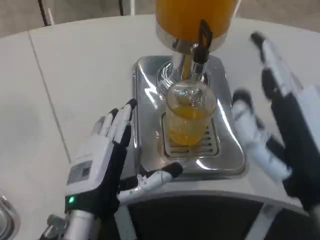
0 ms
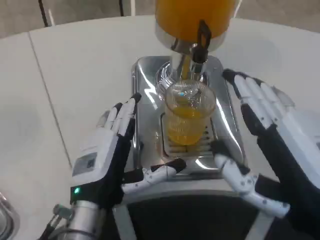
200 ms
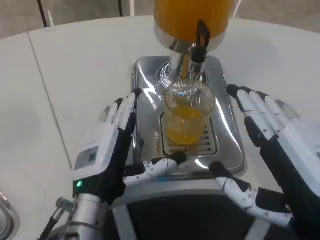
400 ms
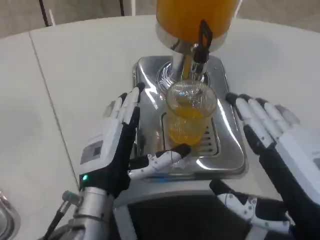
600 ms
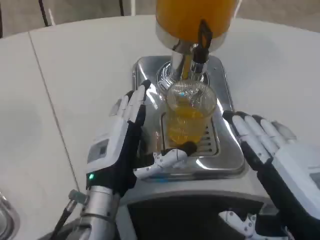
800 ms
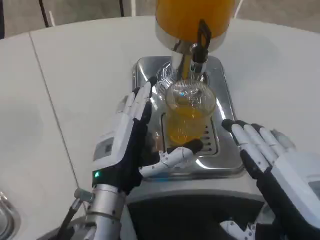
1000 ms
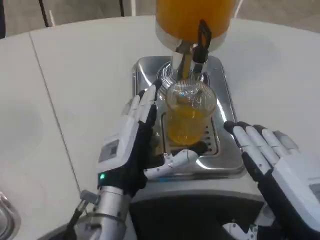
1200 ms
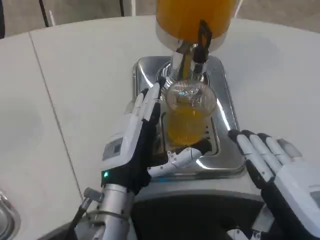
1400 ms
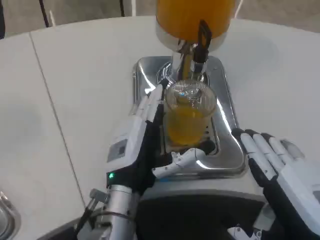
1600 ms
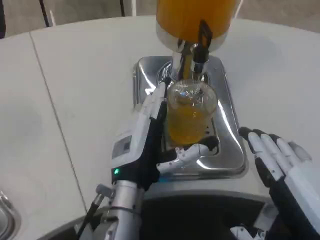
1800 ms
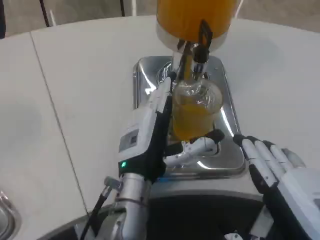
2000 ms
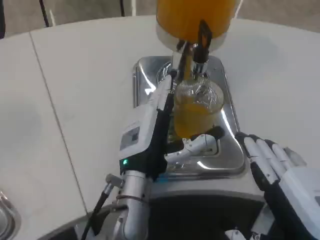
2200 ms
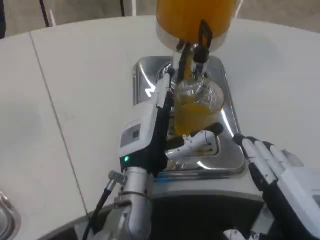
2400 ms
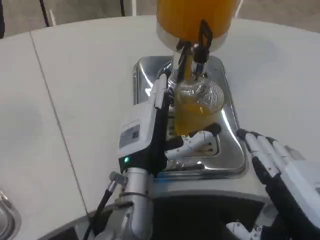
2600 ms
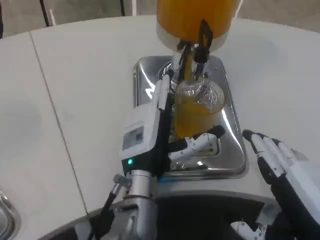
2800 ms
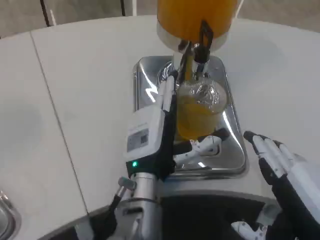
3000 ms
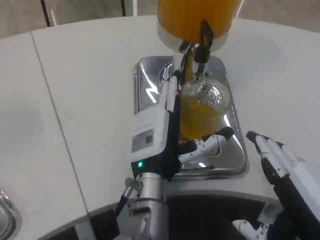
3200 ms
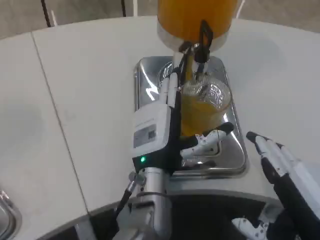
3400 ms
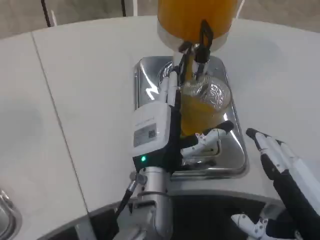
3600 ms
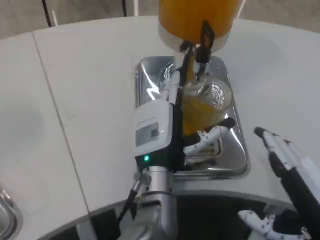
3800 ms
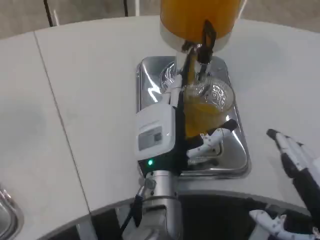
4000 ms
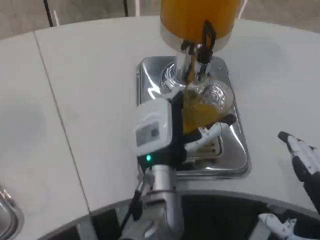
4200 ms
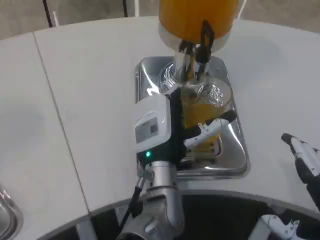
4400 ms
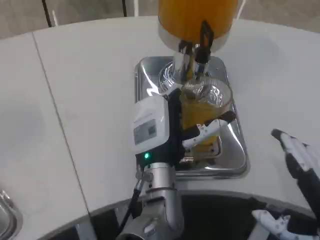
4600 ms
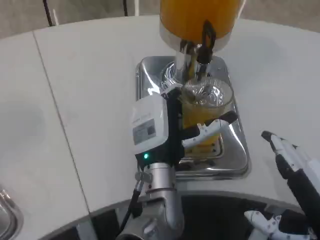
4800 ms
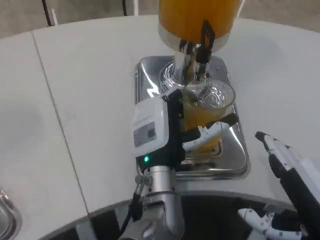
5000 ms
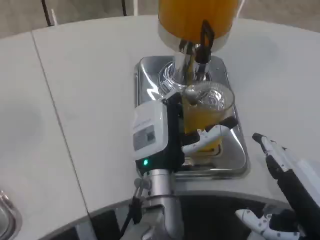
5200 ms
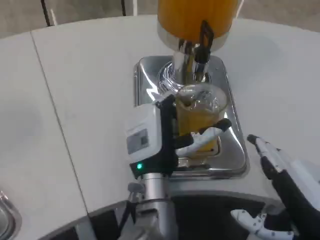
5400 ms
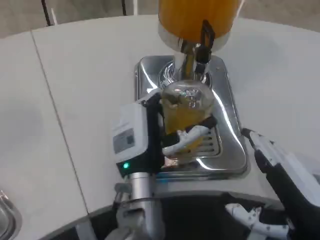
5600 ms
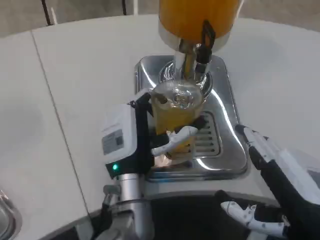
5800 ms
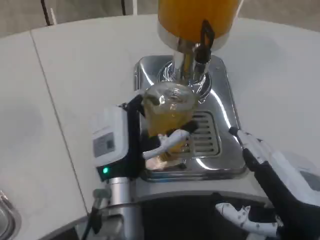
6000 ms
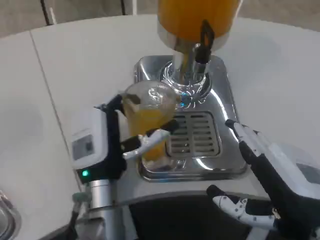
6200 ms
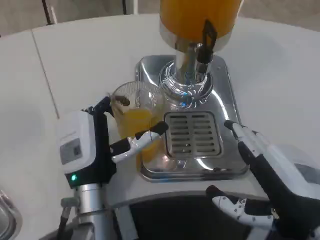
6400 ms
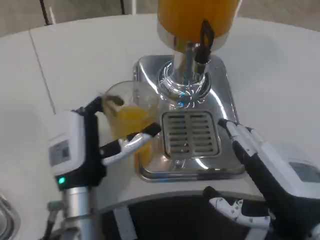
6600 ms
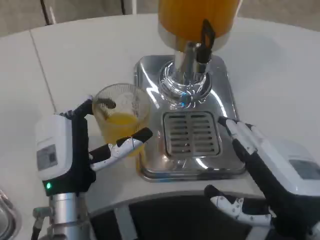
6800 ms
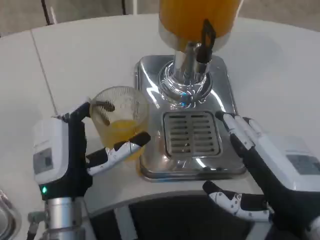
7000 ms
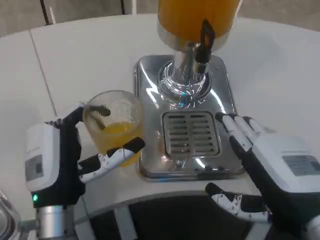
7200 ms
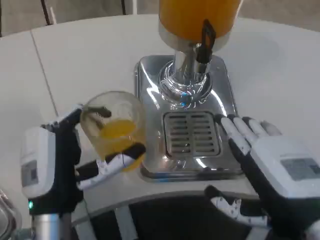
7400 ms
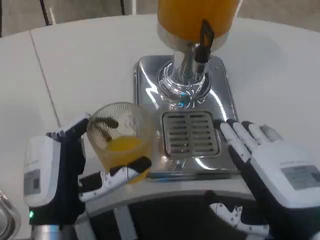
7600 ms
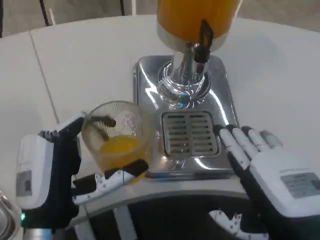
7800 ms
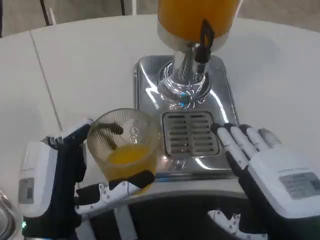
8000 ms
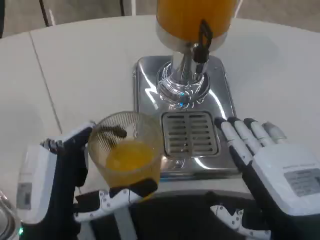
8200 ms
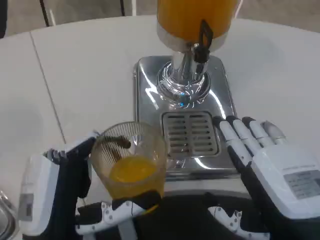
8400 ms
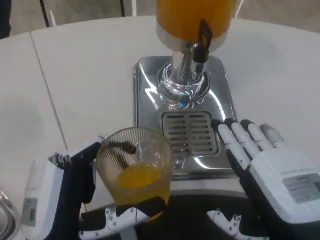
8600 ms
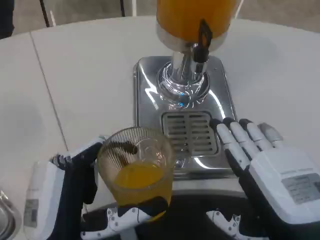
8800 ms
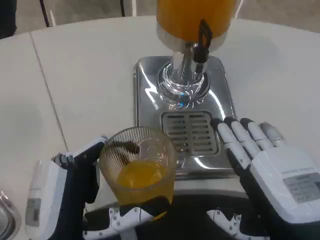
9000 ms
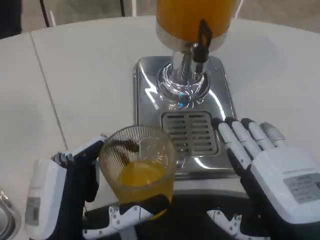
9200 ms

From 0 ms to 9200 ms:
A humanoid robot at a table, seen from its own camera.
Task of the whole recording: Grasp the cup under the faucet to collect the drink, then remove the cup.
From 0 ms to 1600 ms: The right hand changes place by approximately 5 cm. The left hand shifts by about 5 cm.
From 1600 ms to 3000 ms: The hands move only a little.
From 3000 ms to 4600 ms: The hands move only a little.
From 4600 ms to 6200 ms: The left hand moves to the left, about 10 cm.
From 6200 ms to 7600 ms: The left hand heads backward and to the left, covering roughly 10 cm.
From 7600 ms to 9200 ms: The left hand goes some 5 cm backward.
